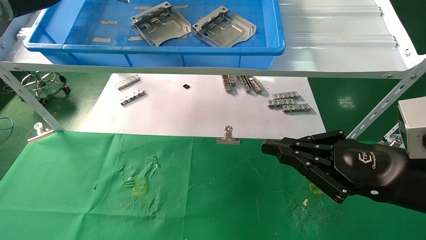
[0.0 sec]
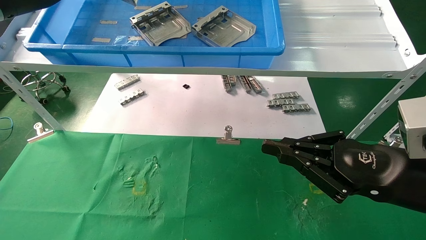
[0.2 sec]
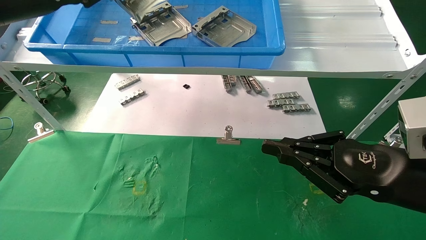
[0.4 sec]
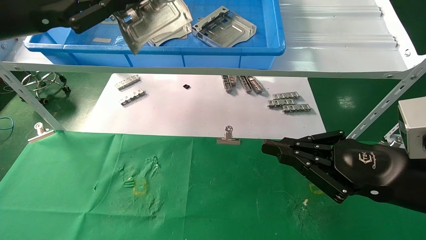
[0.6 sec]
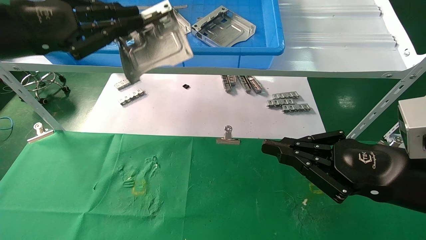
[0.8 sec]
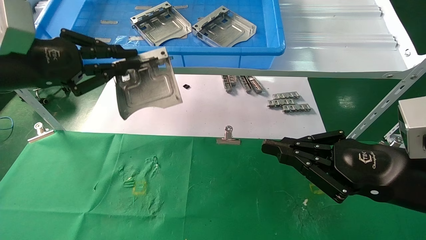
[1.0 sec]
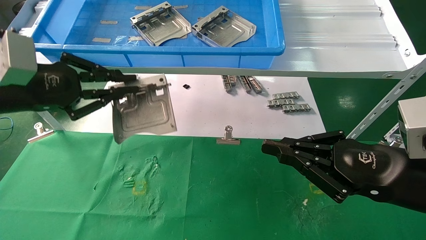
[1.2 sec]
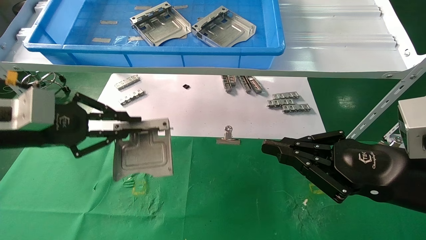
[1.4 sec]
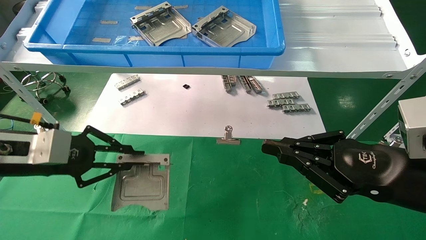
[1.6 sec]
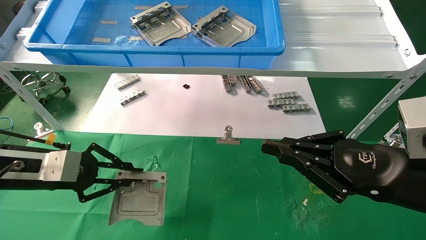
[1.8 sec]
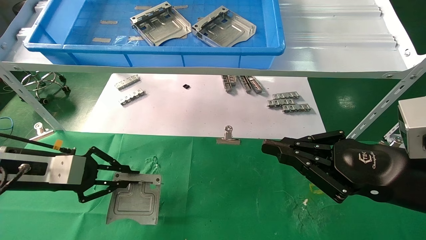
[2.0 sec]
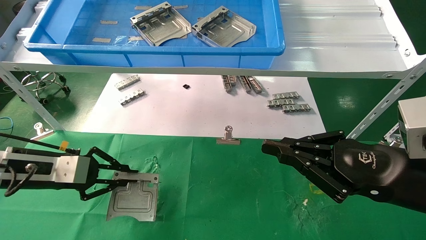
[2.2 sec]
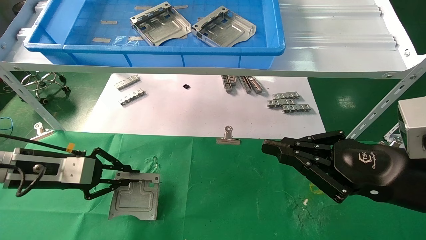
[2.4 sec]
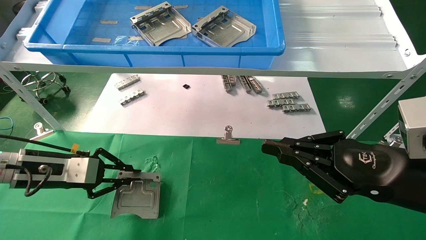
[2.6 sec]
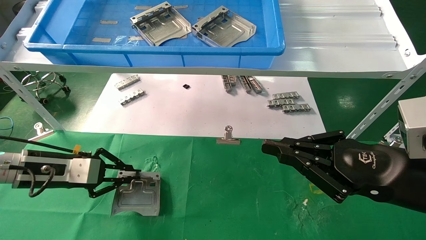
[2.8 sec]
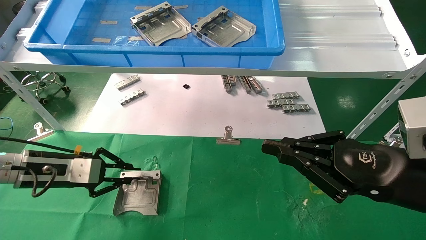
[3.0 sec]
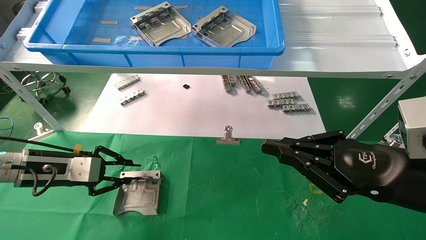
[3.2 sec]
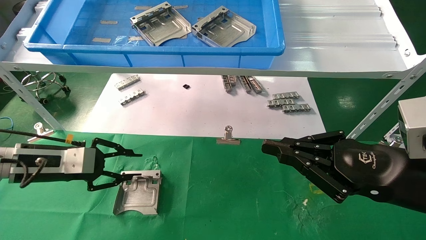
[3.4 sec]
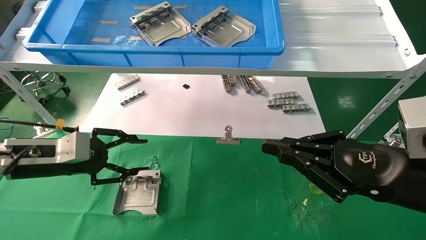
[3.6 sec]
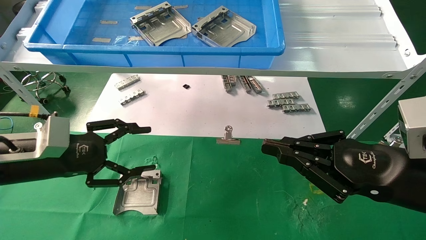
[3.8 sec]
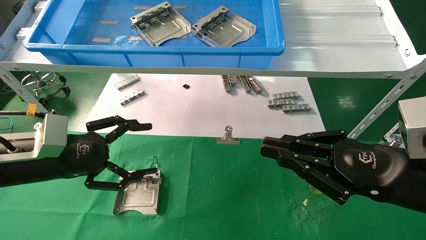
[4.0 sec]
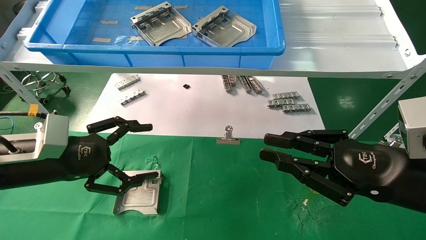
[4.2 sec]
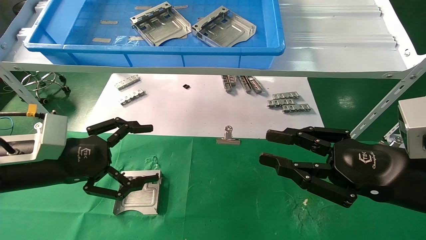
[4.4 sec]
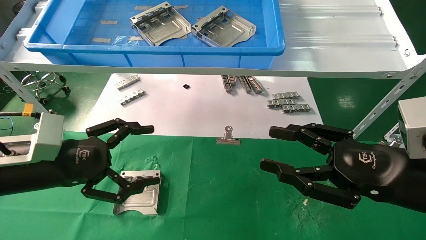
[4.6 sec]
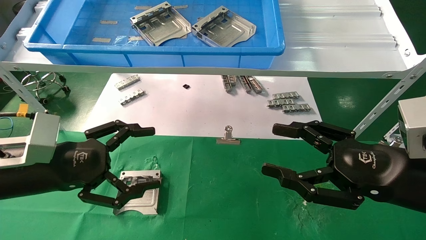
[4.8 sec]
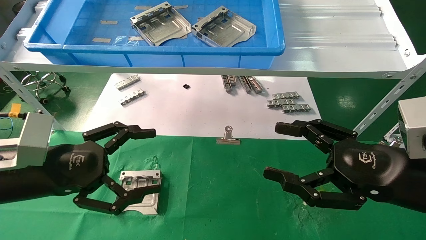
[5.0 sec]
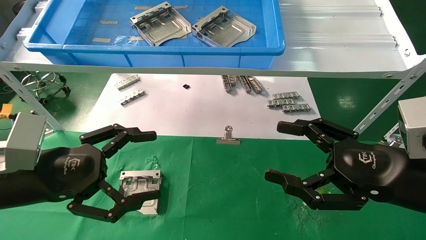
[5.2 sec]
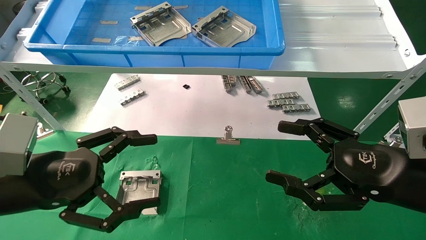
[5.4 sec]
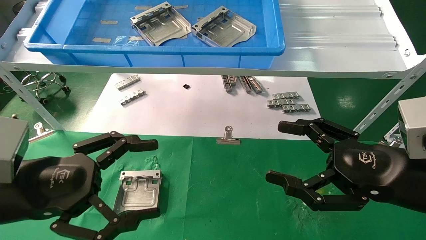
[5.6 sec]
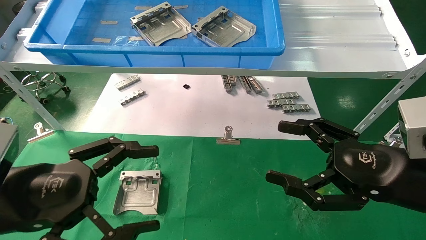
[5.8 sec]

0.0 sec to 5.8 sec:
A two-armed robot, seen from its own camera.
Task of the whole recording: use the mechanical arm to pick up the parts and place them on the table.
Step, 0.0 sec to 3.0 sec: Place the hard drive bracket into the box.
0.0 sec to 1.4 sec: The left gripper heads downward and backward, covering some 20 cm.
1.4 sec to 2.8 sec: The left gripper is displaced downward and forward by approximately 15 cm.
2.8 sec to 4.4 sec: The left gripper travels backward by about 5 cm, and opens its fingers.
4.4 sec to 5.8 sec: The right gripper opens up. Meanwhile the left gripper goes about 10 cm backward.

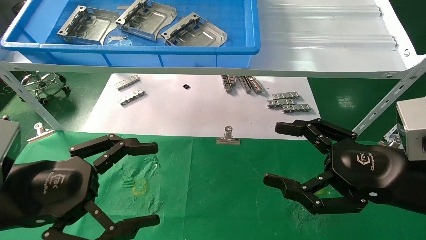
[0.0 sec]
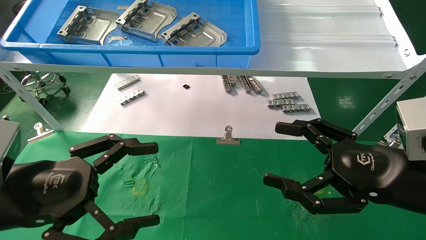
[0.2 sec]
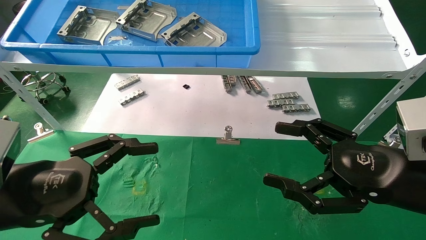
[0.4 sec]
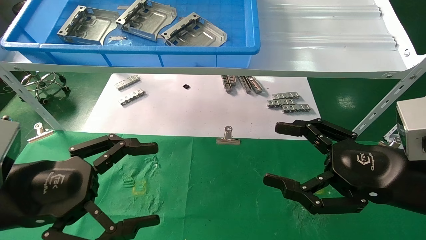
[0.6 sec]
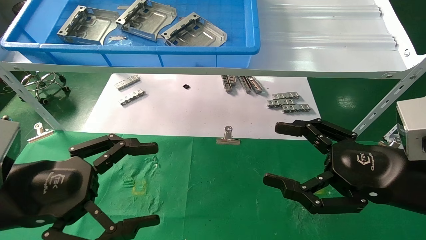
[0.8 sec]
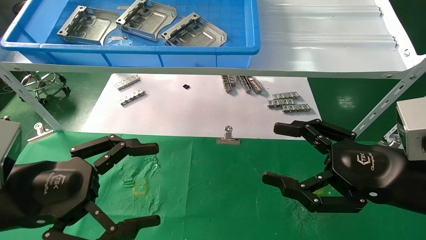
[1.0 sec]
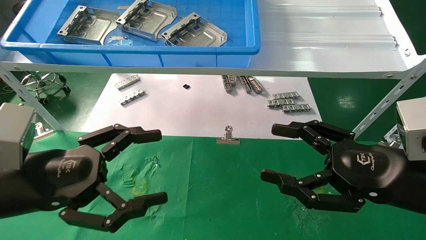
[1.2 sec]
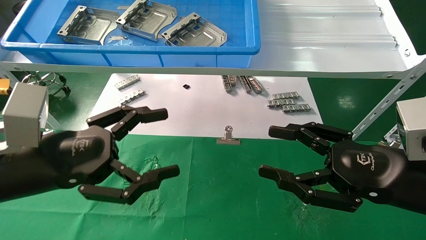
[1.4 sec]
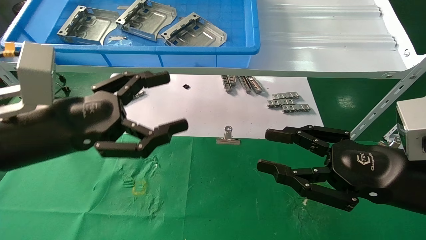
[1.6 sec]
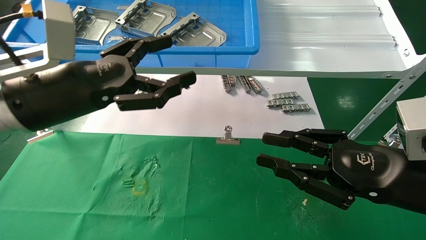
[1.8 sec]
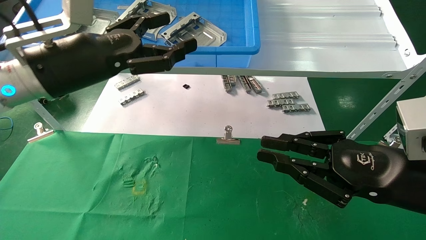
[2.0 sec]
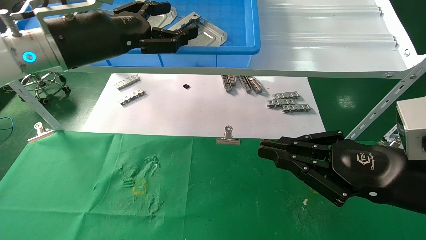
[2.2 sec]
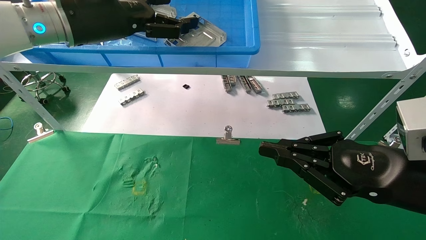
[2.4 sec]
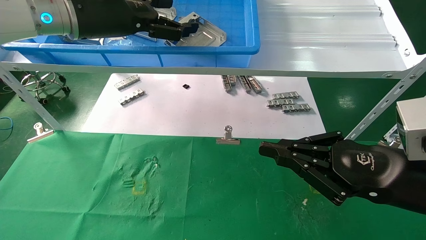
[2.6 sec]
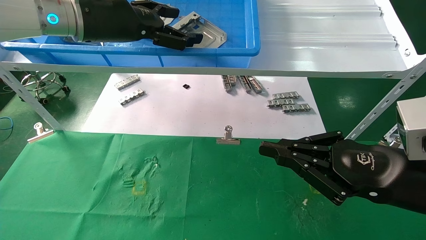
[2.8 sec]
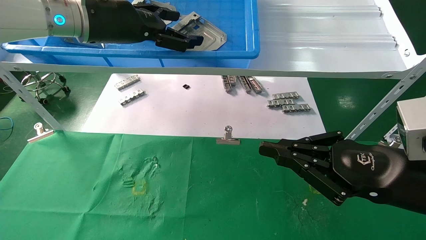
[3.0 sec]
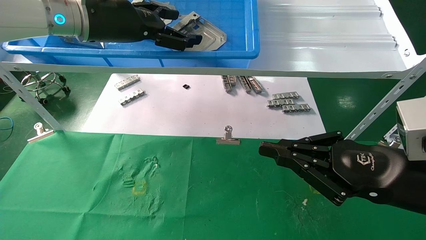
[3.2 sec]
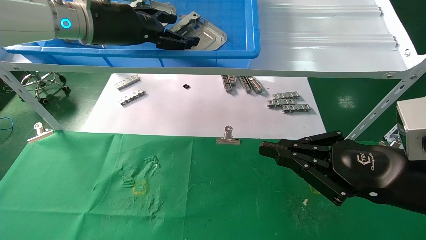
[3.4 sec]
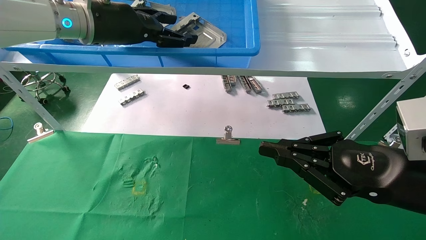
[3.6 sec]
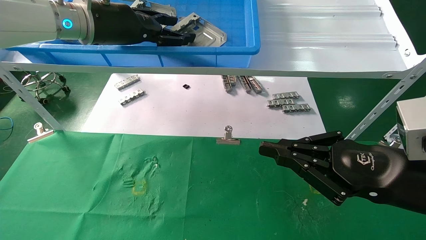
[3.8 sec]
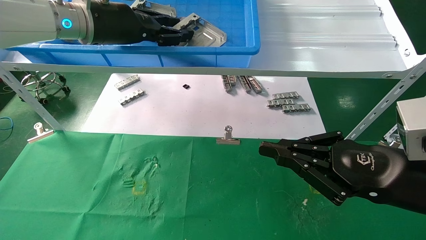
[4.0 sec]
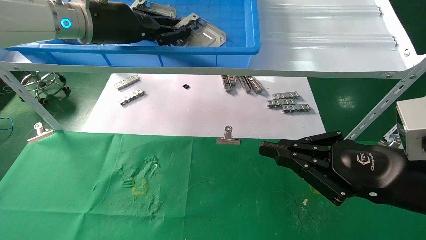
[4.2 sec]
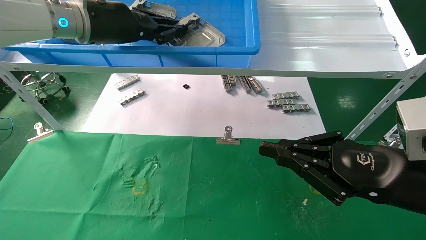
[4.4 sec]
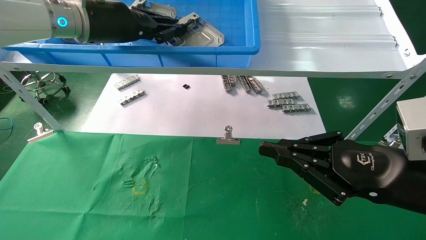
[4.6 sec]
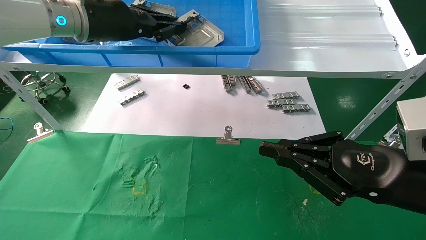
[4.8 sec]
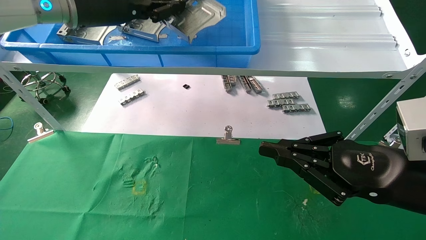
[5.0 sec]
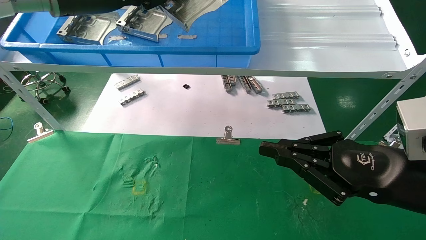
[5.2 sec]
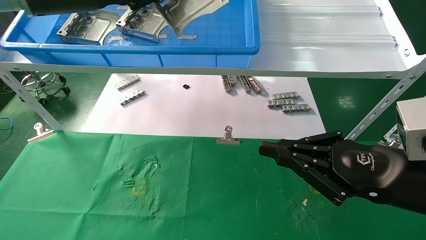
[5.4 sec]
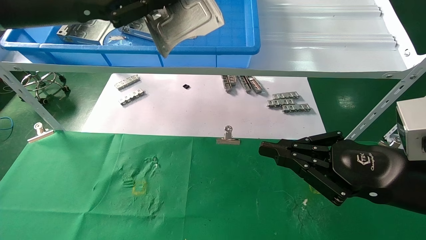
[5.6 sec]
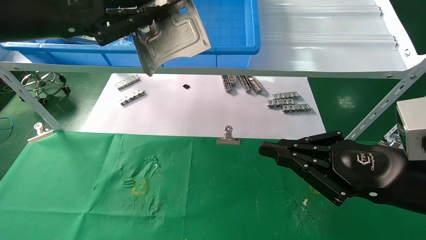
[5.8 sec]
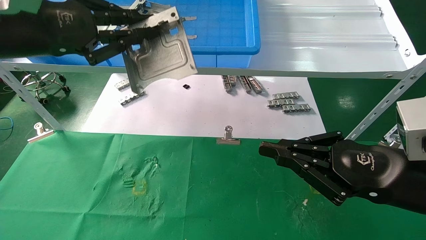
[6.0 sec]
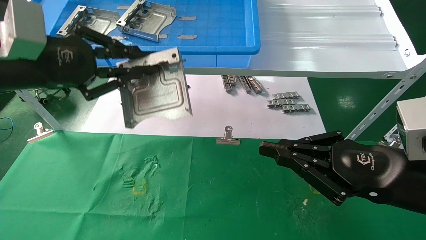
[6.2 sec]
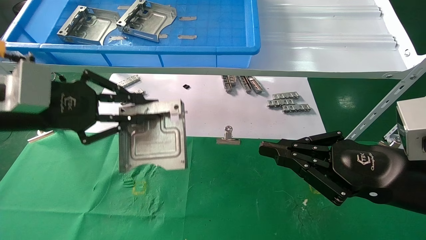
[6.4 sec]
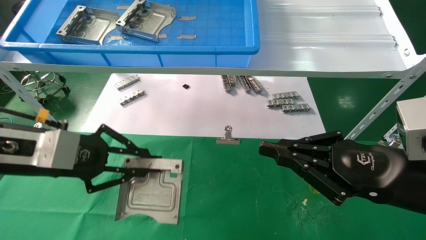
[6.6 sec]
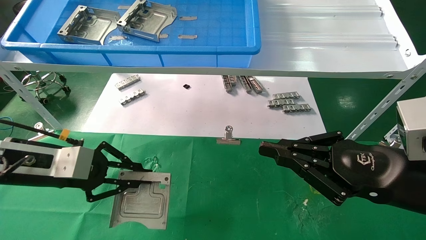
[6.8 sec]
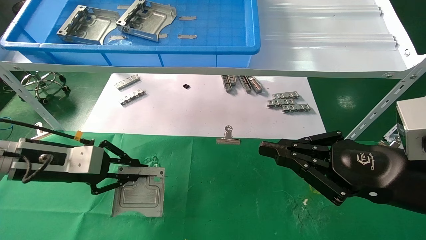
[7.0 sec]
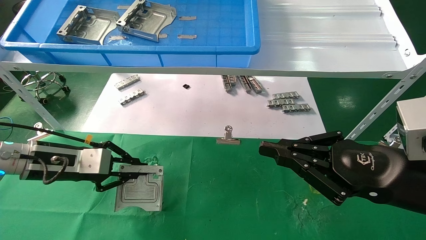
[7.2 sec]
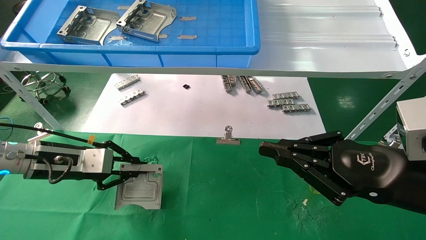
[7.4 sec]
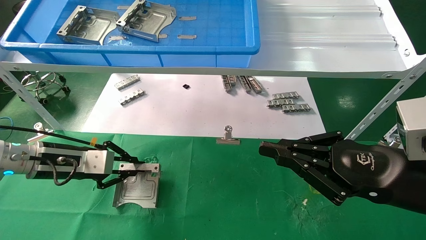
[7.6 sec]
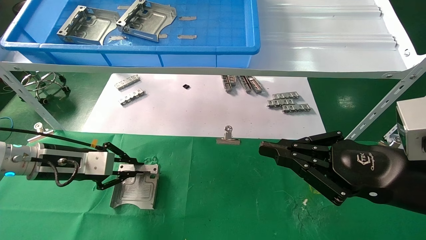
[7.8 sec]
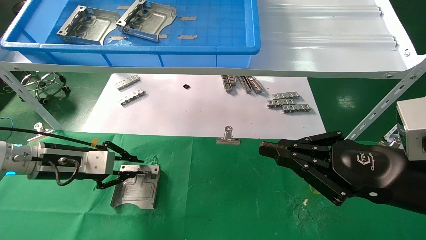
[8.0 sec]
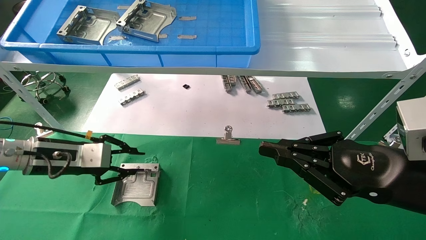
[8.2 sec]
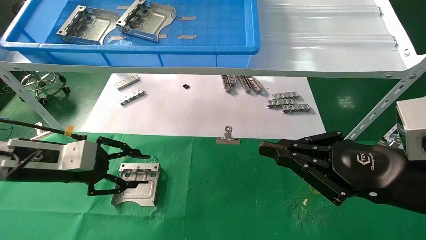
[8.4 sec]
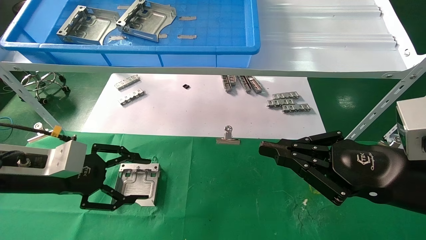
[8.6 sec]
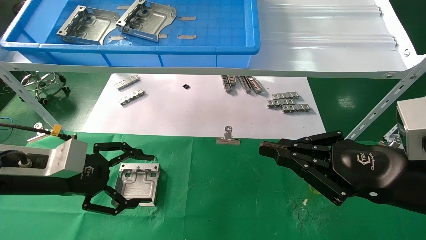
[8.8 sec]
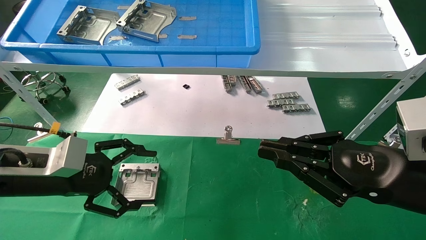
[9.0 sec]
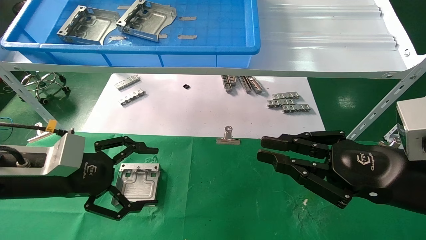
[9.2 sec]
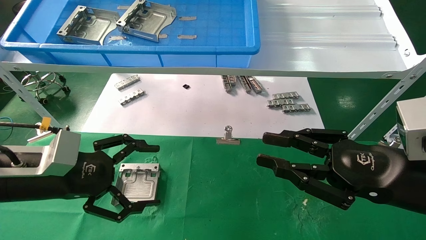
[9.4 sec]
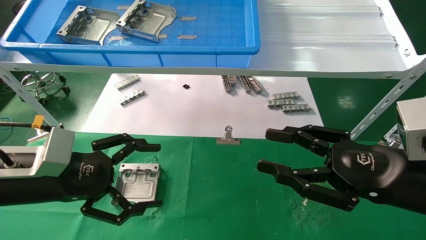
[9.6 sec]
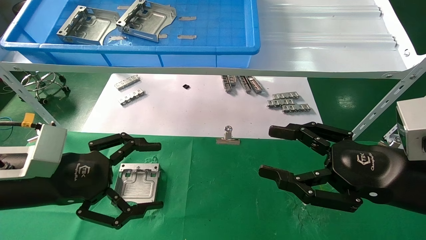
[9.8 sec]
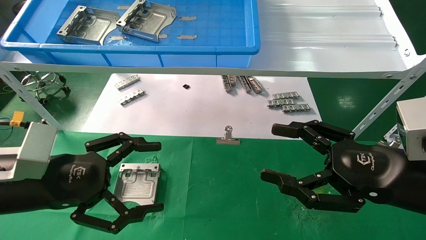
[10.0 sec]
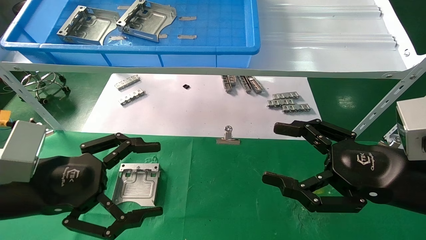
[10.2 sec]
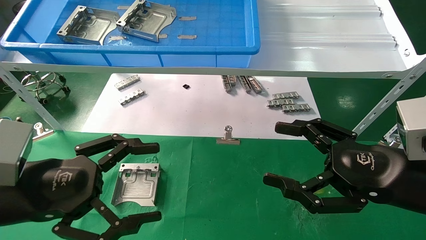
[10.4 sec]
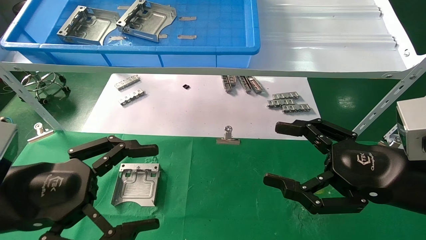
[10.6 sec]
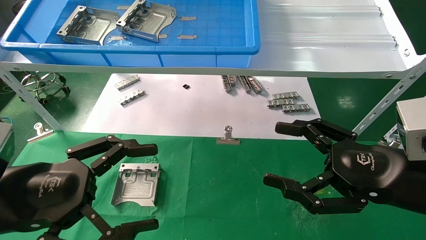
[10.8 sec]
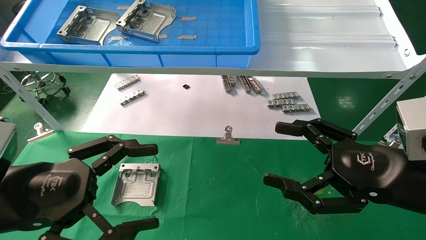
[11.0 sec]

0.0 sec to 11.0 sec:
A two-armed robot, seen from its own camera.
Task of the whole recording: use the mechanical arm to pick up the parts and place them on the table.
Step, 1.4 sec to 4.4 sec: Pick up the hard drive bracket from the feeding area.
Step, 4.6 sec to 8.0 sec: Place the hard drive bracket into the box.
0.0 sec to 1.6 sec: The left gripper is displaced forward and upward by approximately 10 cm. Meanwhile the right gripper closes up.
1.6 sec to 3.2 sec: The left gripper is displaced upward and forward by roughly 20 cm. The right gripper closes its fingers.
3.2 sec to 4.8 sec: The left gripper closes.
4.8 sec to 6.2 sec: The left gripper is displaced backward, to the left and downward by roughly 15 cm.
6.2 sec to 7.8 sec: The left gripper heads downward and forward, covering roughly 20 cm.
7.8 sec to 9.4 sec: The left gripper heads backward, covering approximately 10 cm, and opens.
9.4 sec to 11.0 sec: The right gripper opens, while the left gripper shifts some 10 cm backward.
